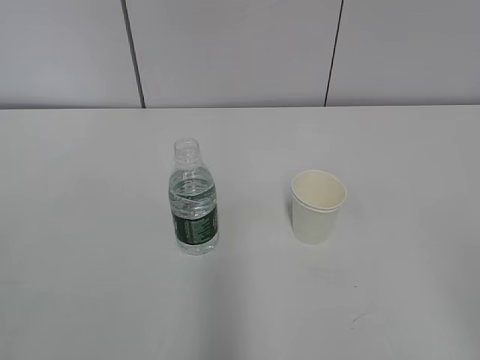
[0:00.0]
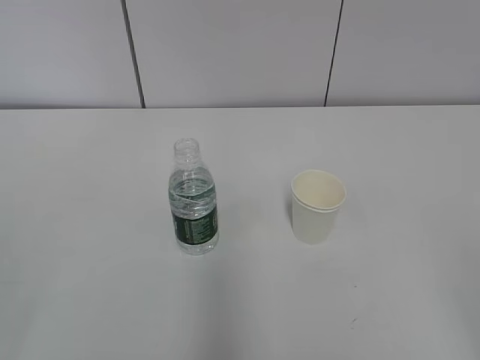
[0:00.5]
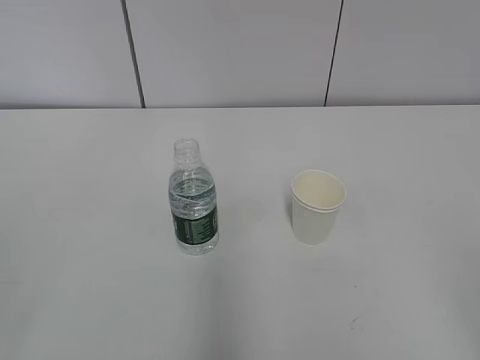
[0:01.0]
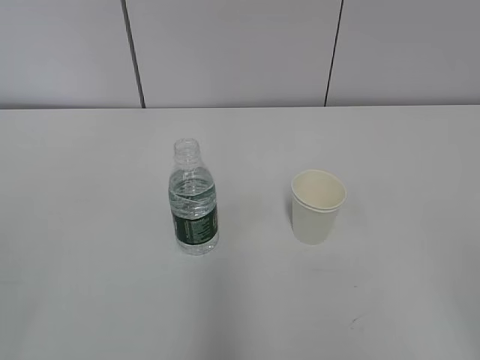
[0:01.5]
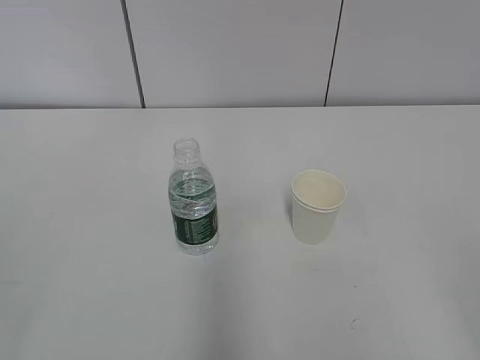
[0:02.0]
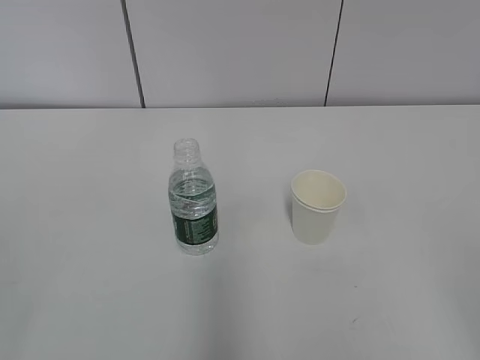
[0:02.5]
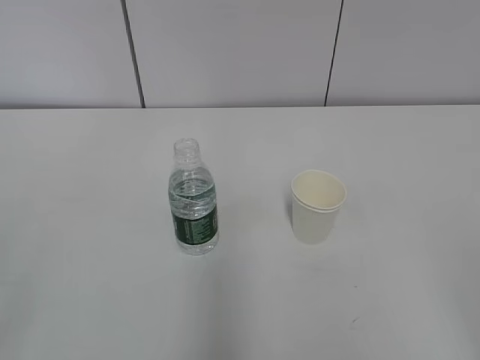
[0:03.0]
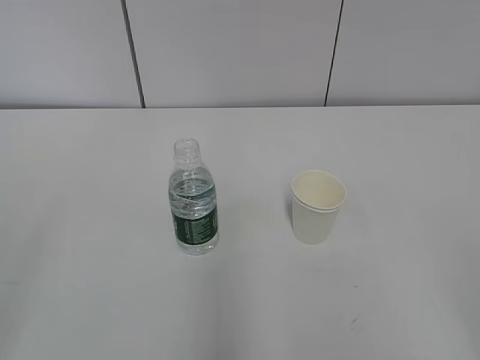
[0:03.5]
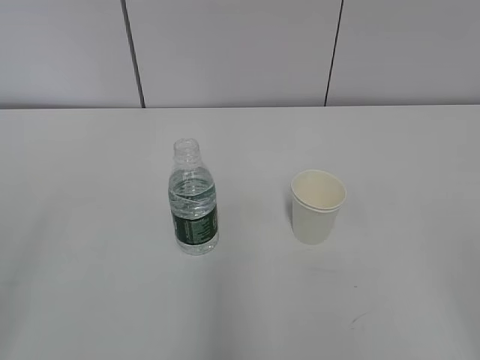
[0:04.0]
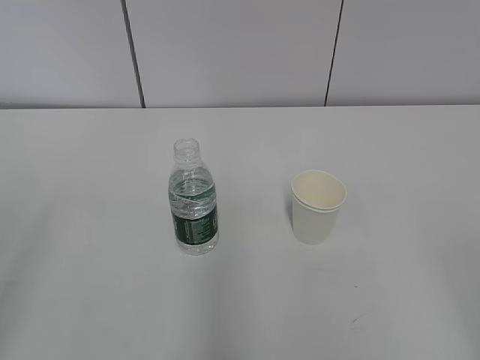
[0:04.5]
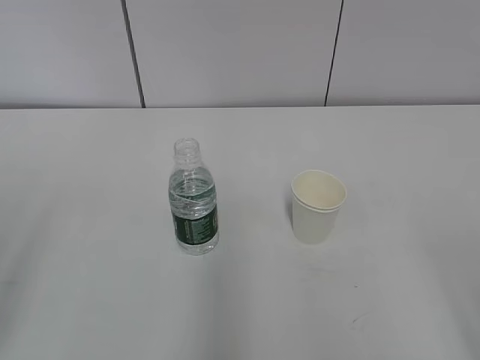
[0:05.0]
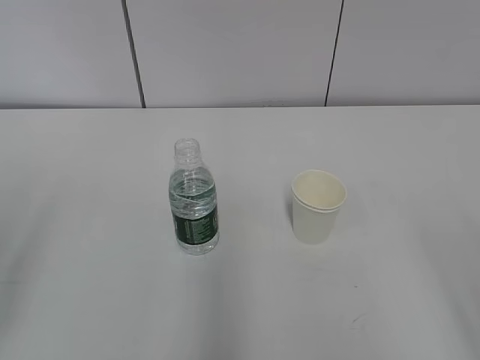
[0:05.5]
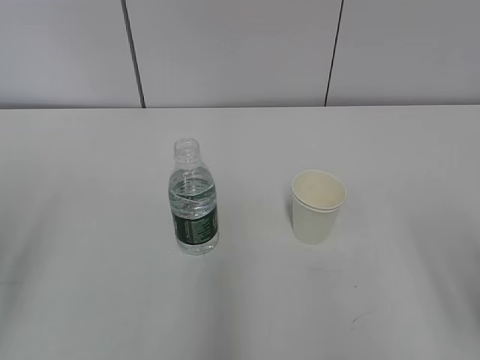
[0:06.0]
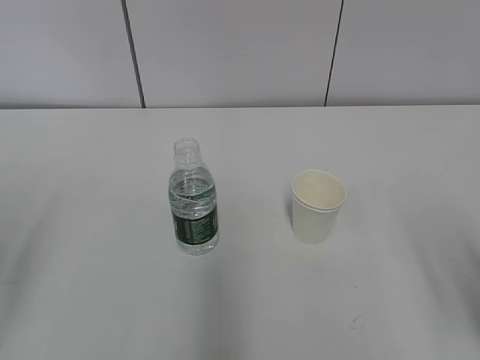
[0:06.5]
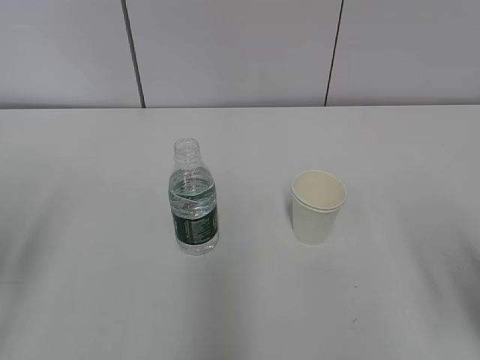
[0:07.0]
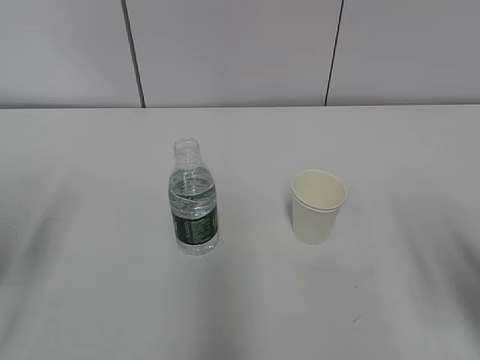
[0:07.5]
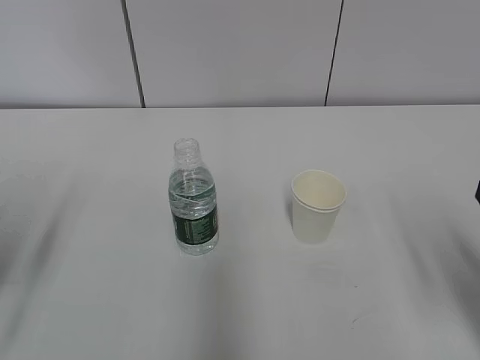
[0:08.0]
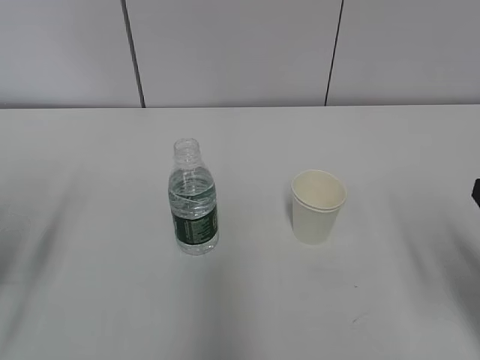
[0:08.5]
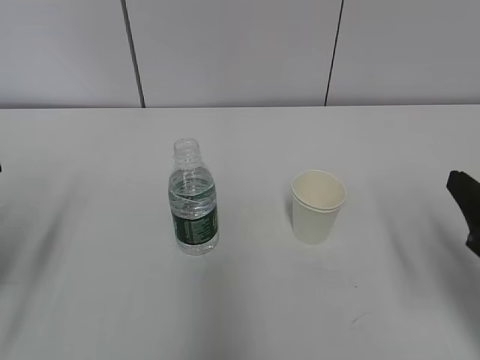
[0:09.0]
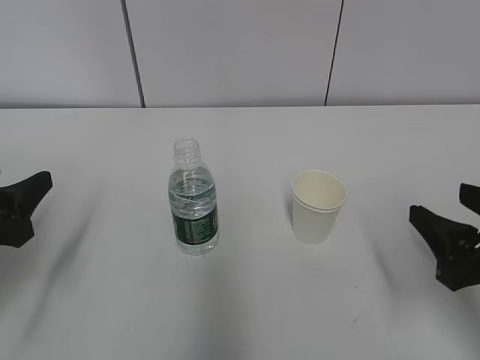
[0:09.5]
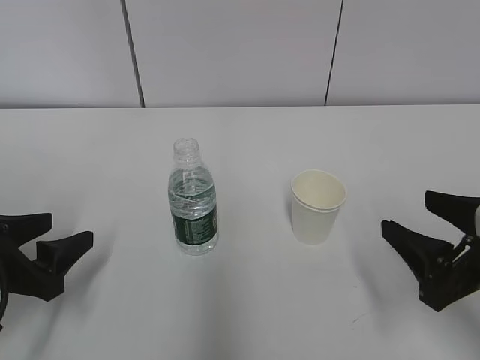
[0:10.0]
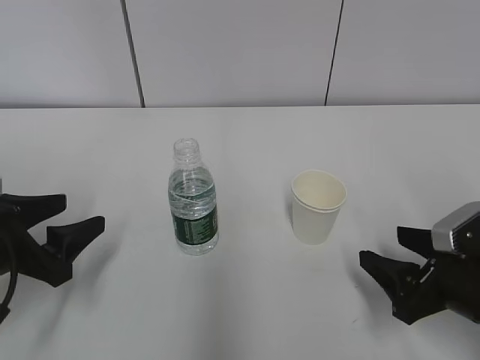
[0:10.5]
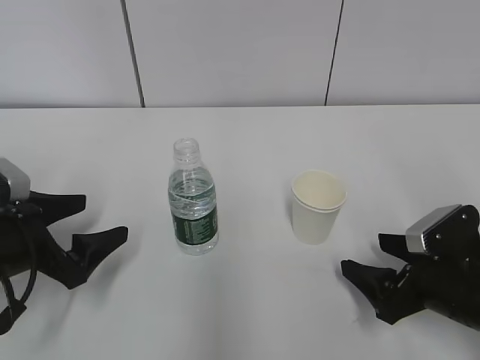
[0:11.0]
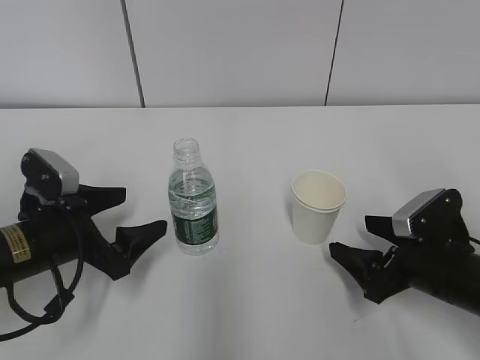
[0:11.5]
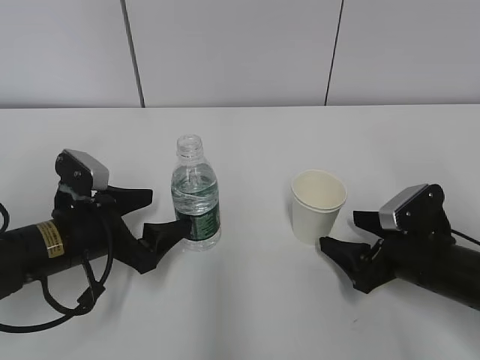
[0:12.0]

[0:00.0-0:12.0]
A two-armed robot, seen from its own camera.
Step, 0:00.0 to 0:11.5: Grab the water bottle with the left hand.
0:08.0 to 0:10.0: The right gripper shifts by about 5 cm. Meanwhile the left gripper goes roughly 10 cm downward.
0:10.0 to 0:12.0: The right gripper is displaced downward and forward by some 10 cm, and opens up. Meanwhile the left gripper shifts some 10 cm to the right and forward, and opens its fingers.

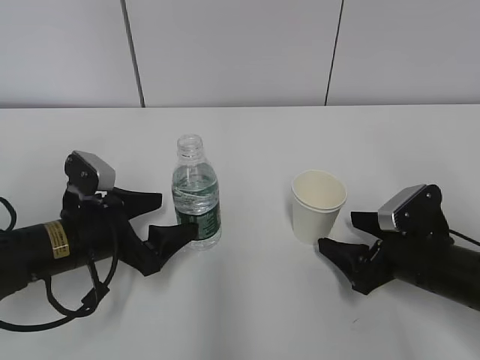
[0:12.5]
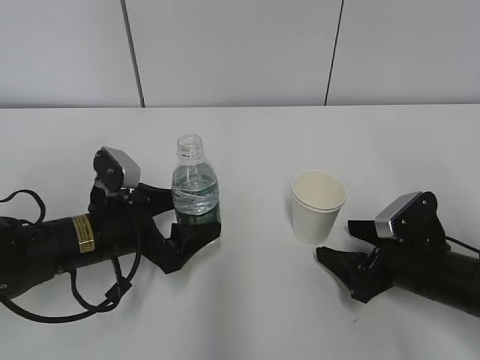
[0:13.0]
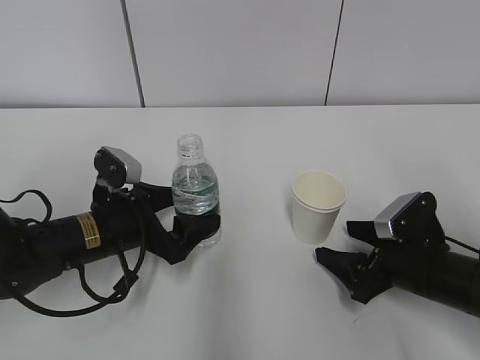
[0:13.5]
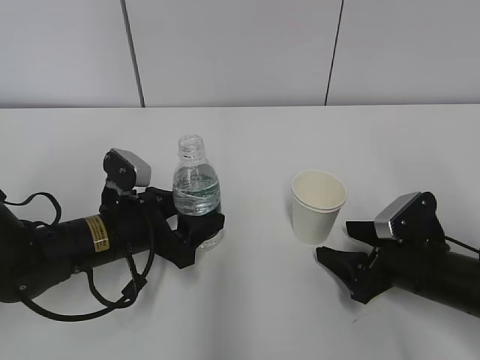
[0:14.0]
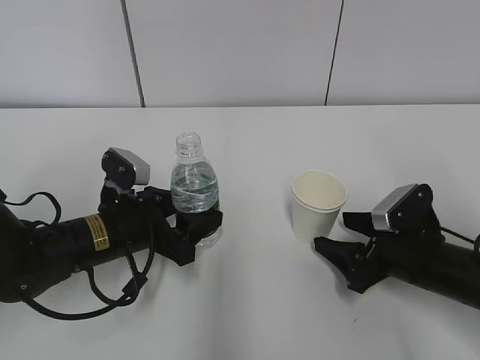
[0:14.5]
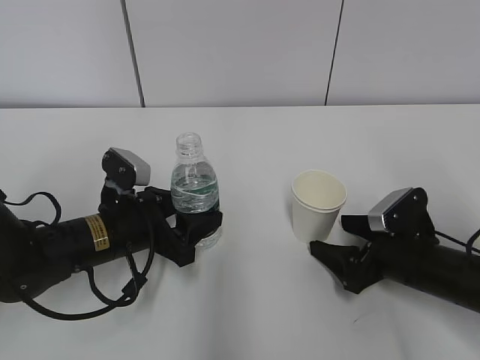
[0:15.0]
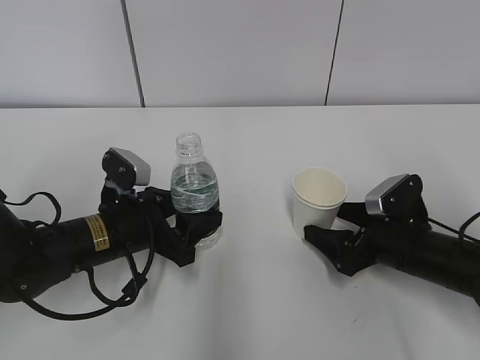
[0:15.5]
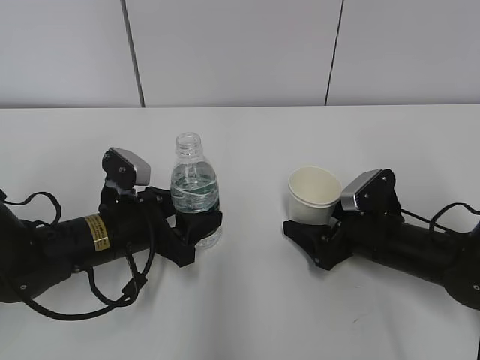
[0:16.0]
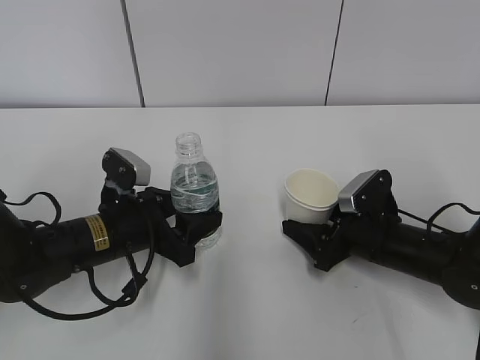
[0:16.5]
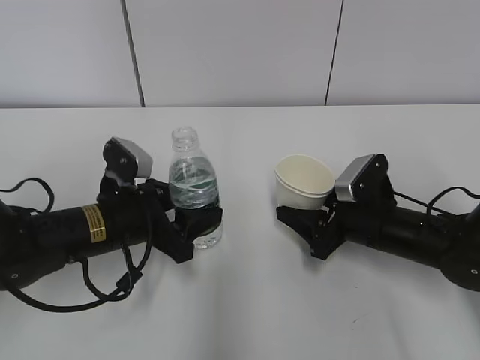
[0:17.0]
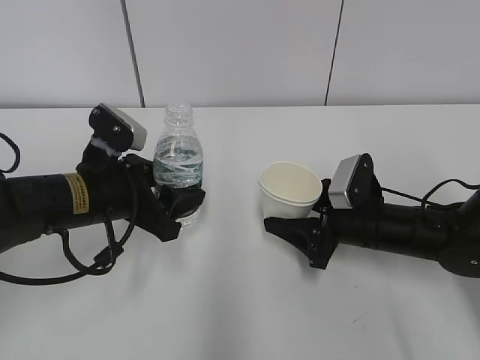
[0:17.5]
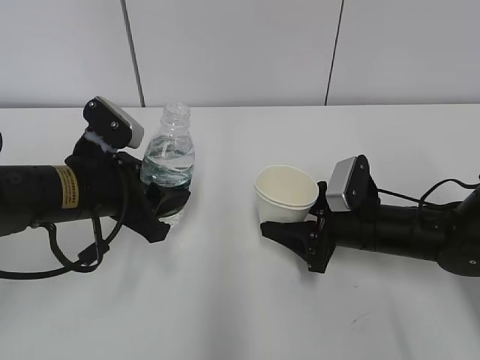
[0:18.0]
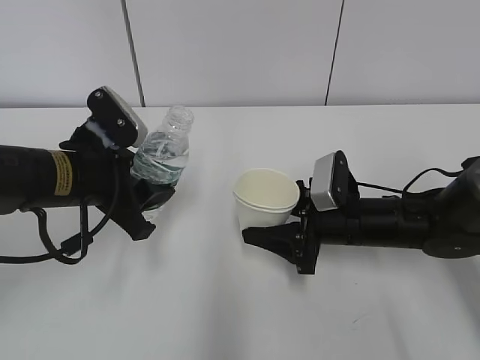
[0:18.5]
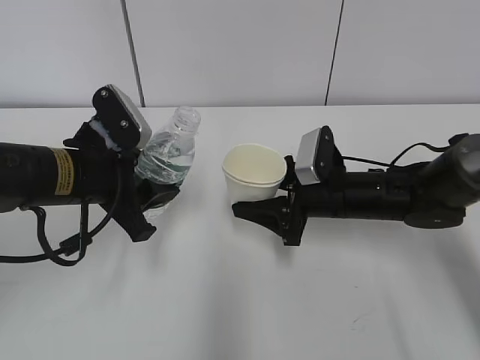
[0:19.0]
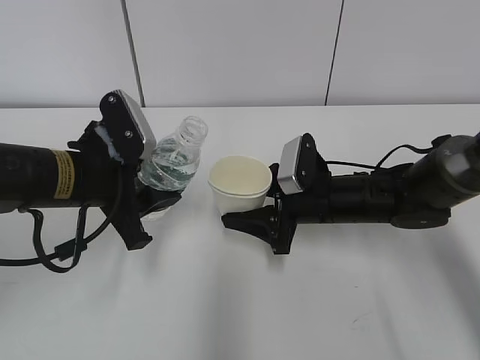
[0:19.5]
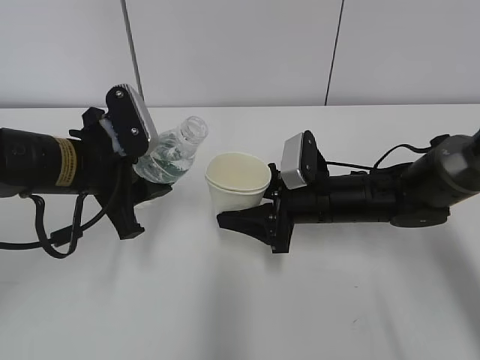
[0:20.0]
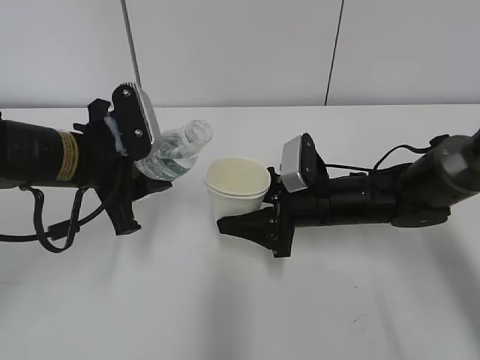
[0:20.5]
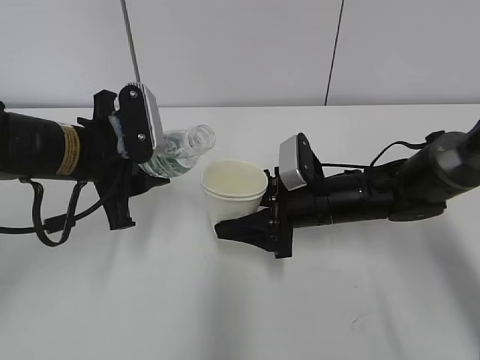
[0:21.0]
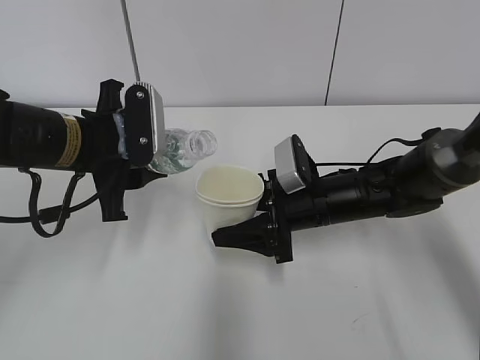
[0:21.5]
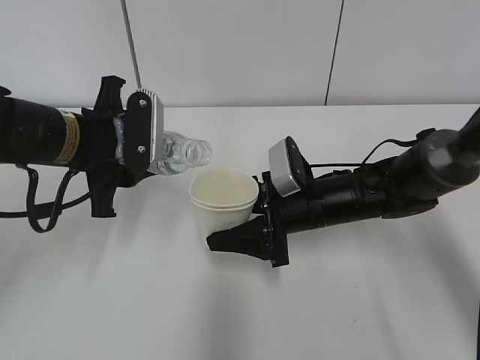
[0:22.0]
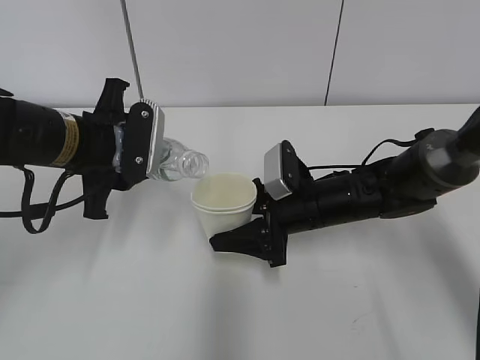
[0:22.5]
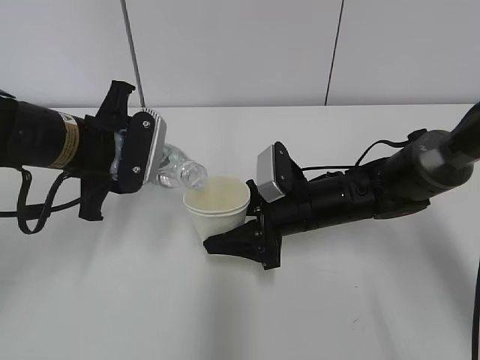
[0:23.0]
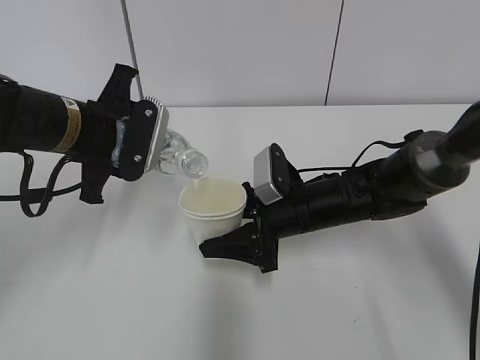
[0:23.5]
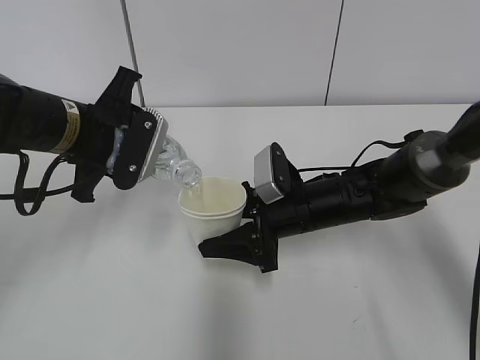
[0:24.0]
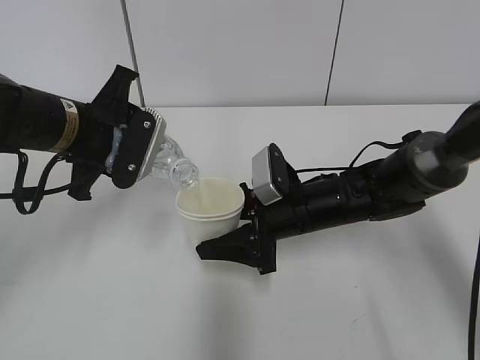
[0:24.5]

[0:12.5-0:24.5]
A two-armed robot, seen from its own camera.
Step, 0:12.5 to 0:13.5: Grab the paper cup with the right hand.
Step, 0:14.0 to 0:19.5: Lift the paper cup with the right hand.
Step, 0:20.0 to 0:24.0: Fill water with the right hand.
Step, 0:20.0 to 0:24.0: Pour water with the left hand.
0:12.5 to 0:14.5: The right gripper closes. The left gripper closes.
0:14.5 to 0:16.5: The right gripper moves roughly 5 cm, and opens and closes again.
0:16.5 to 0:18.5: The left gripper travels upward by some 10 cm; the right gripper changes place by roughly 5 cm.
0:22.5 to 0:24.5: The grippers make only small movements.

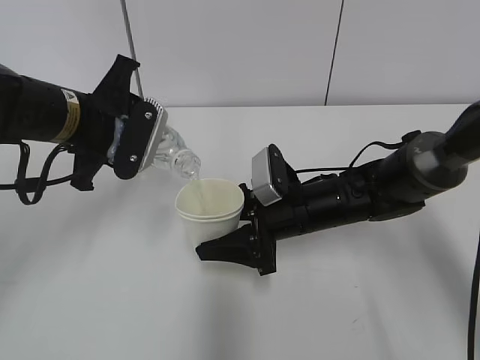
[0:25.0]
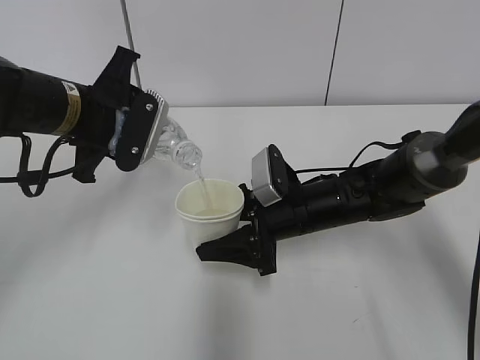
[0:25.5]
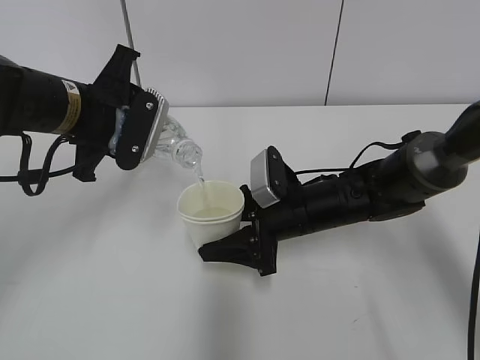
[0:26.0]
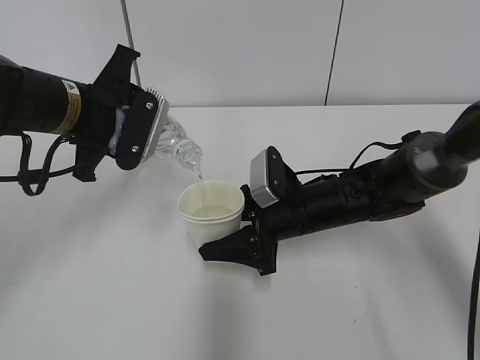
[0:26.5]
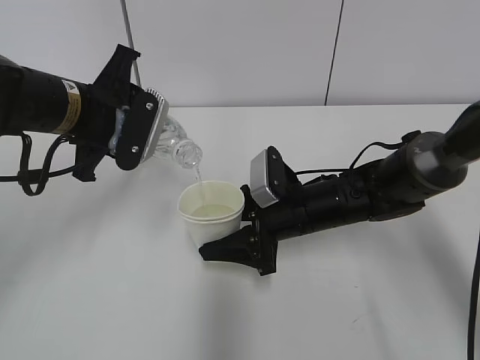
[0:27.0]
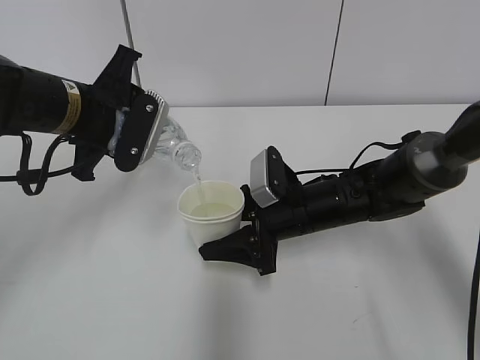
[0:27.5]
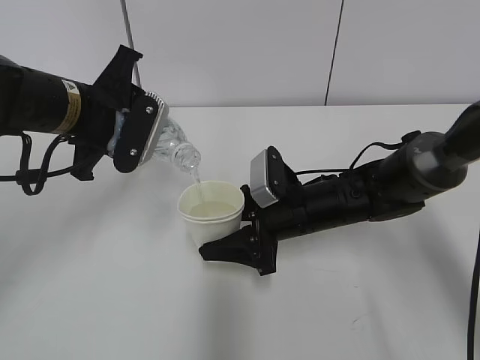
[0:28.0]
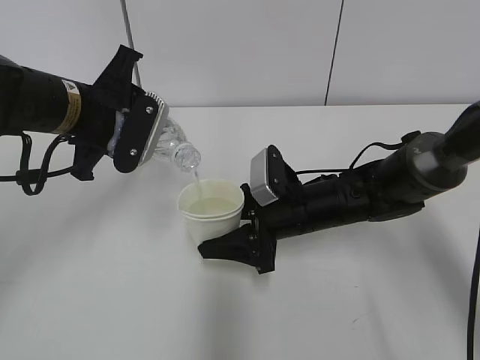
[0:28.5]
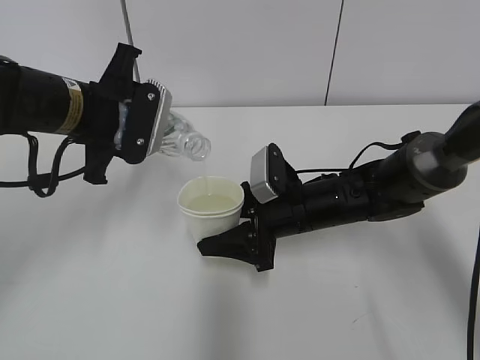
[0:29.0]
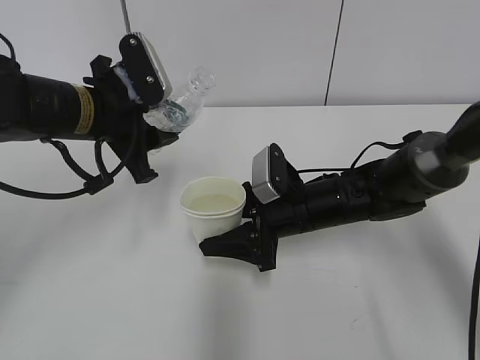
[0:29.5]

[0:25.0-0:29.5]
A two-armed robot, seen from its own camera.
Step, 0:25.5 to 0:27.0: Place the paper cup with the right hand.
0:25.0 to 0:27.0: Neither gripper changes place.
